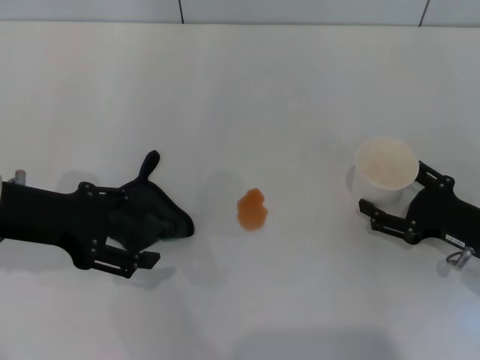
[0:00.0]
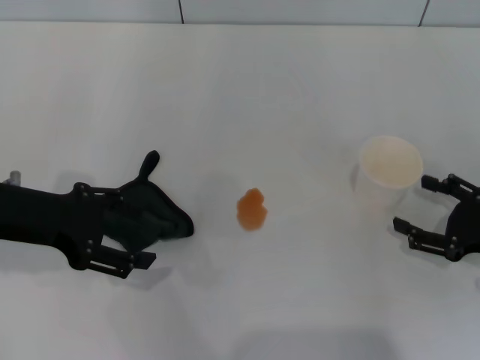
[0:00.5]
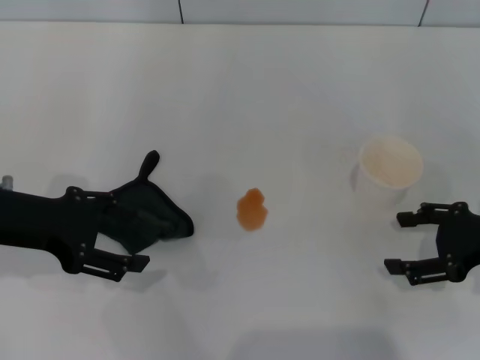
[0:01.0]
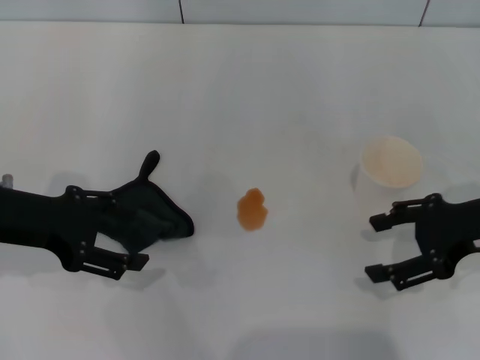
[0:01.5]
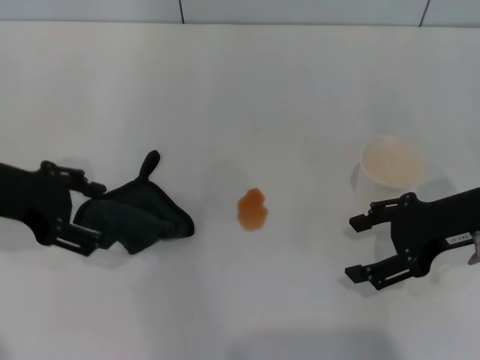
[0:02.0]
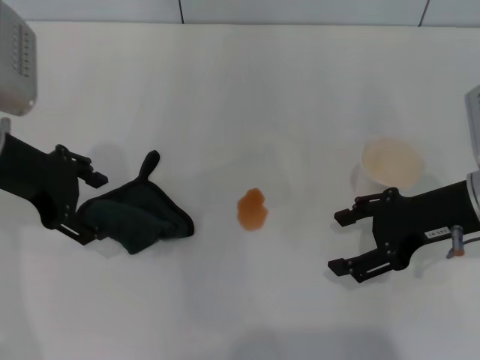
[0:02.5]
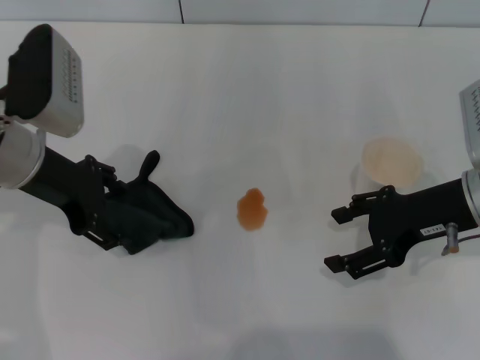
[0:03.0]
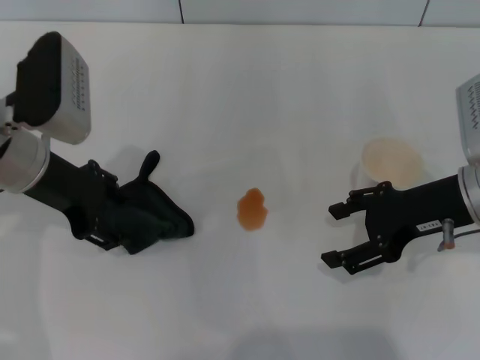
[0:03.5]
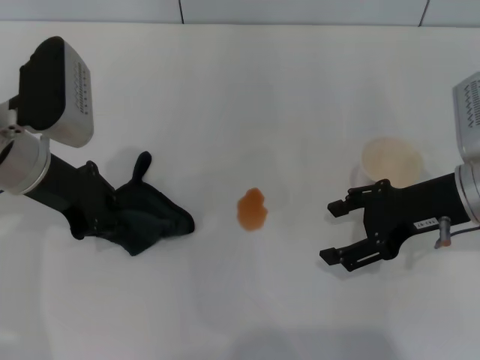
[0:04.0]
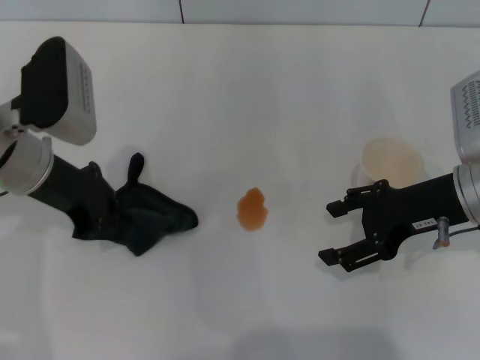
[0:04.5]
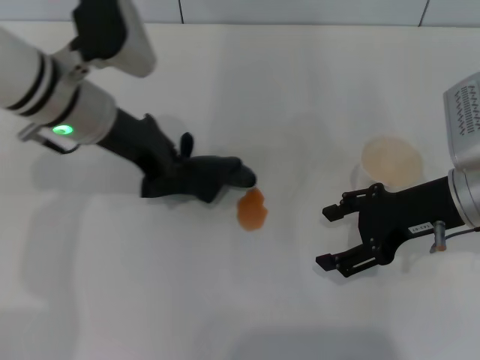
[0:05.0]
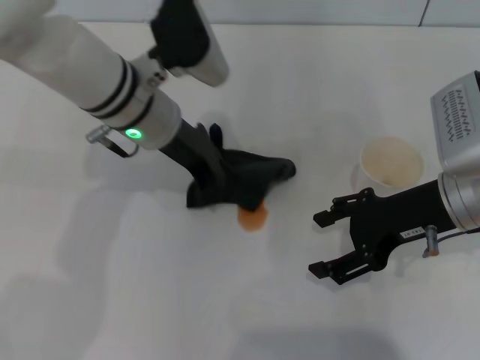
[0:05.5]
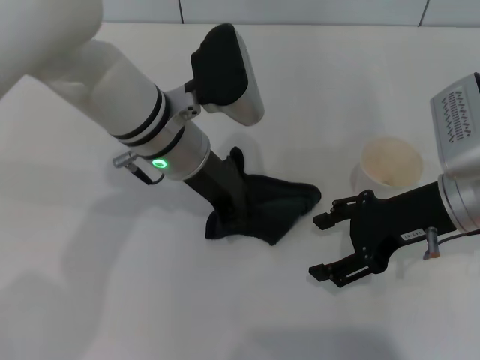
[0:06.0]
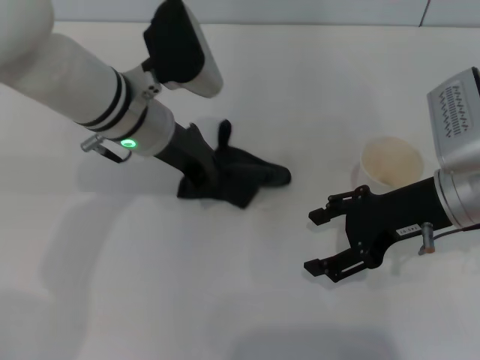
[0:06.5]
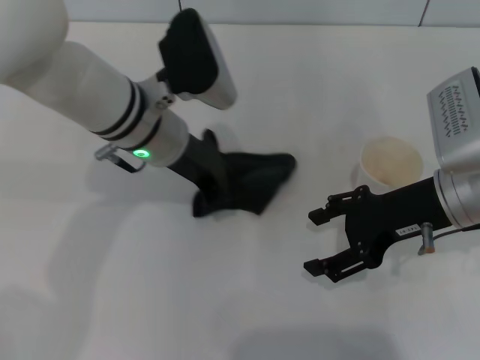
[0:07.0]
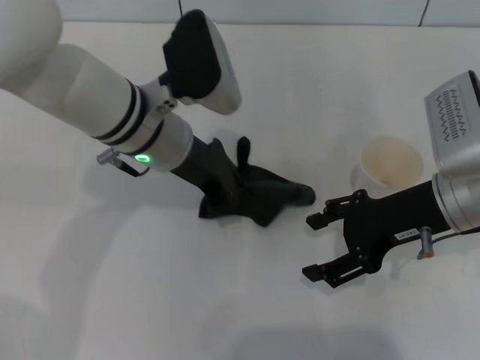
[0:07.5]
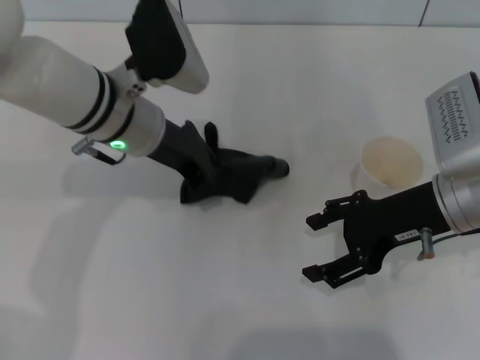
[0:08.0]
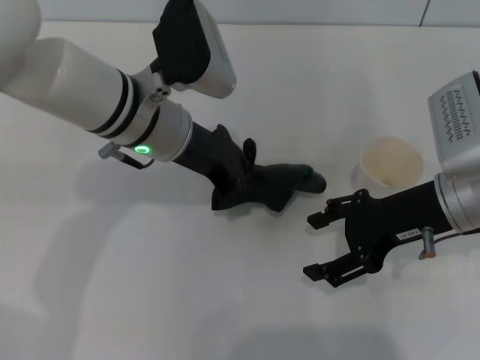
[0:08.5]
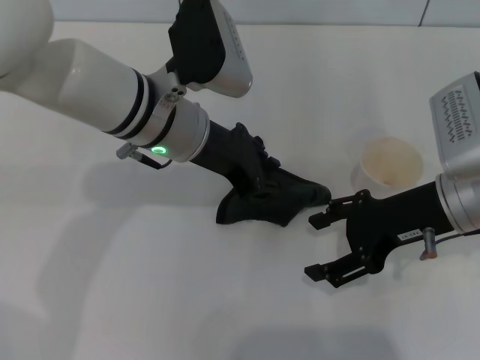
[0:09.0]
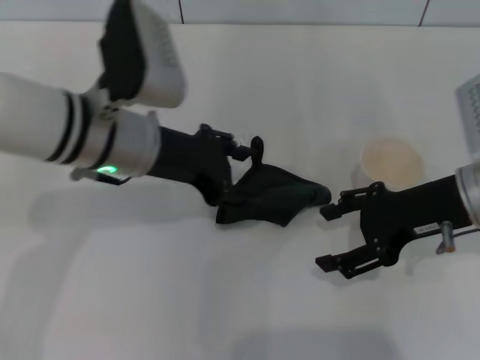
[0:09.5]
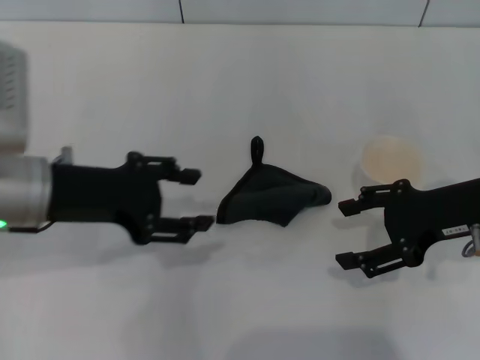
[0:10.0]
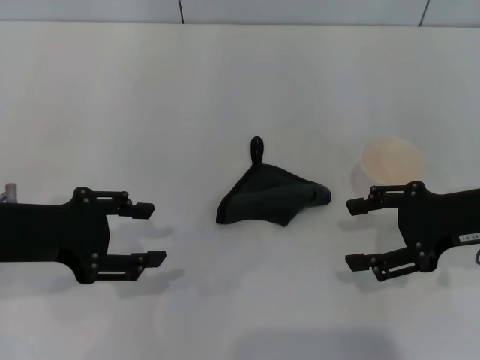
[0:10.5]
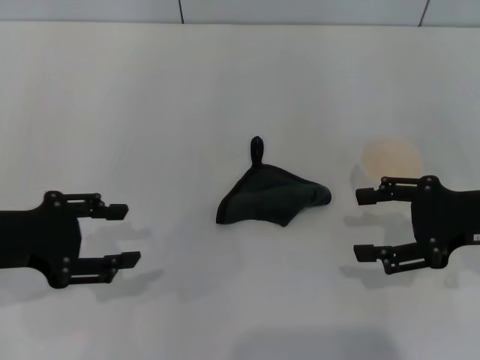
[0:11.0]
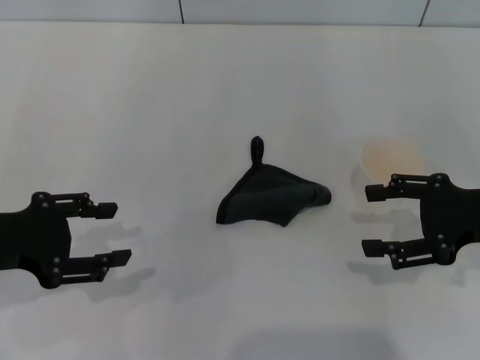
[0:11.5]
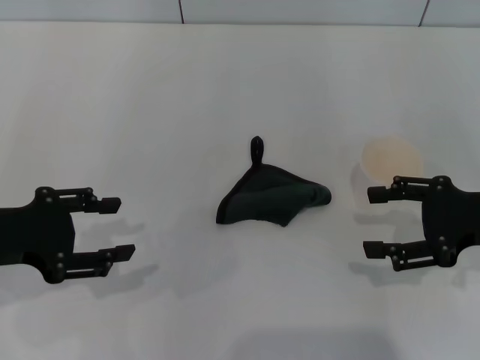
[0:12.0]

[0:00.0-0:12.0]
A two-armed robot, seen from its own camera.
Step, 0:01.0 to 0:04.5: Grasp the rag with the left gripper.
Step, 0:05.0 to 0:08.5: Wipe the stains off the table with the left gripper.
Step, 0:09.0 to 0:09.5: Place the rag on the table with the left gripper.
0:00.0 to 0:02.0: The right gripper is displaced upward by some 10 cm.
0:02.0 to 0:04.0: The left gripper shifts some 5 cm to the right, and closes up.
0:04.0 to 0:06.0: The left gripper goes some 15 cm to the right, and closes up.
0:08.0 to 0:10.0: The left gripper heads to the left and backward, covering about 15 cm, and opens.
0:10.0 to 0:12.0: The left gripper goes approximately 10 cm to the left. The right gripper ends up roughly 5 cm from where it was.

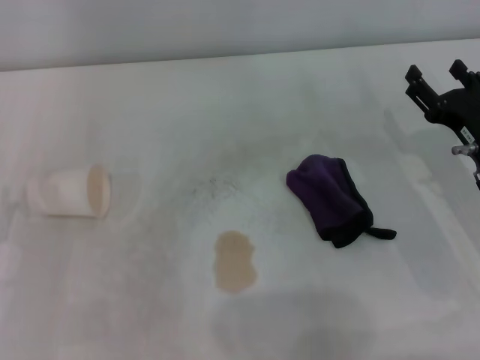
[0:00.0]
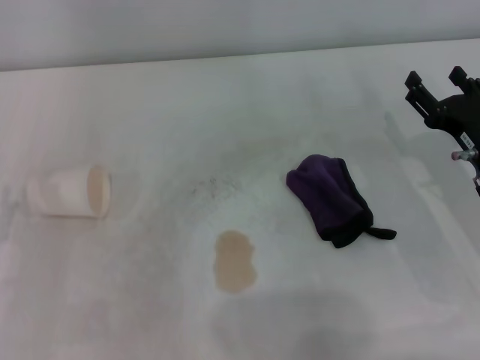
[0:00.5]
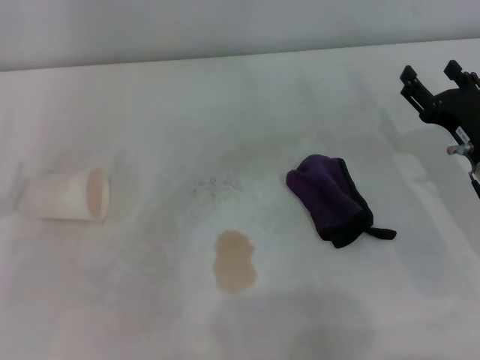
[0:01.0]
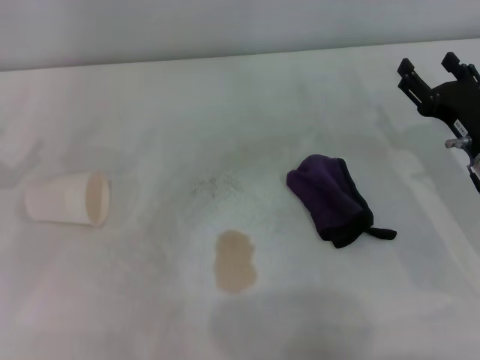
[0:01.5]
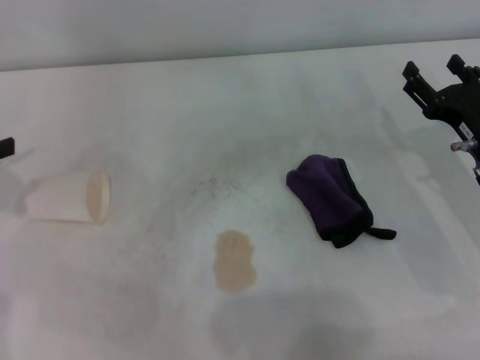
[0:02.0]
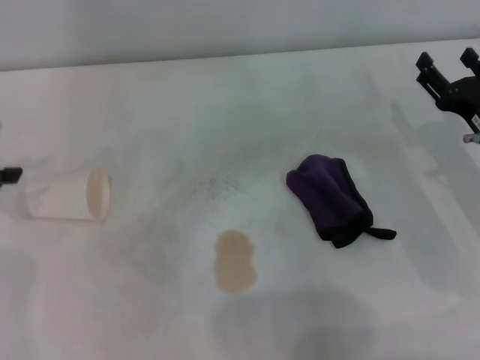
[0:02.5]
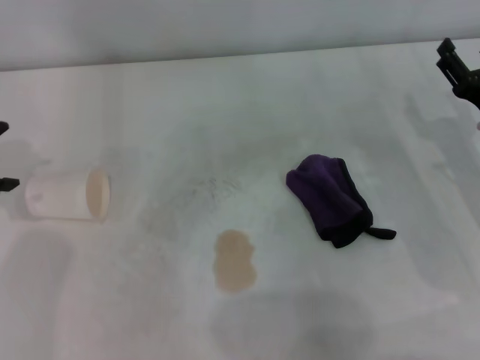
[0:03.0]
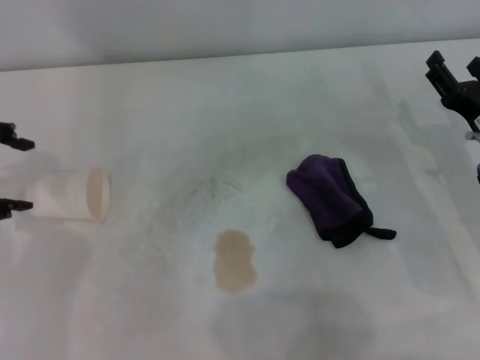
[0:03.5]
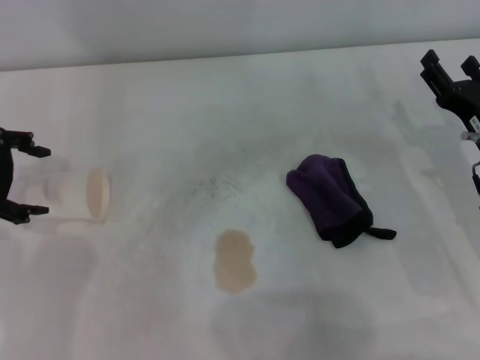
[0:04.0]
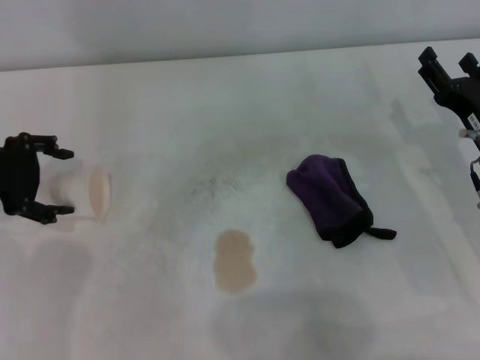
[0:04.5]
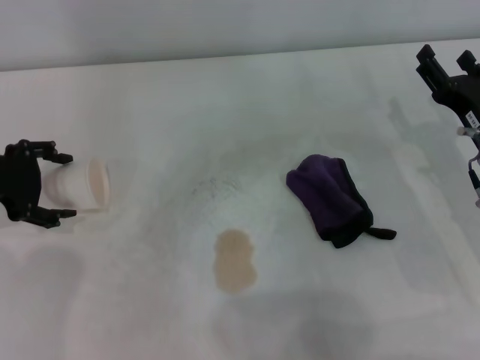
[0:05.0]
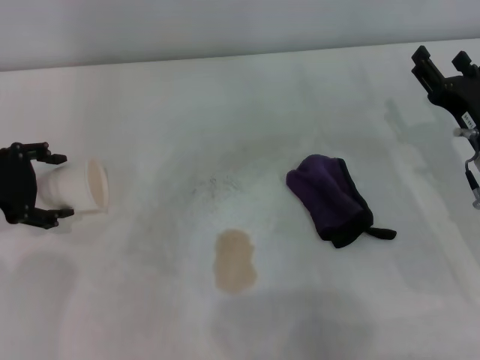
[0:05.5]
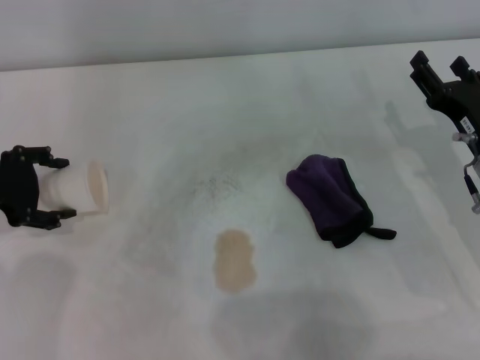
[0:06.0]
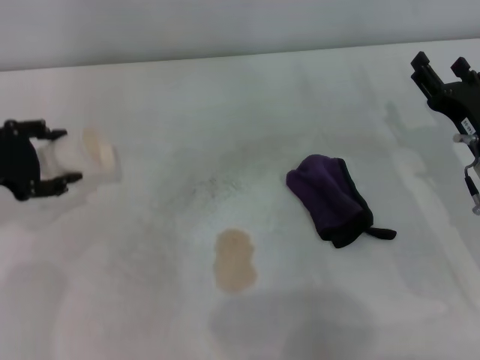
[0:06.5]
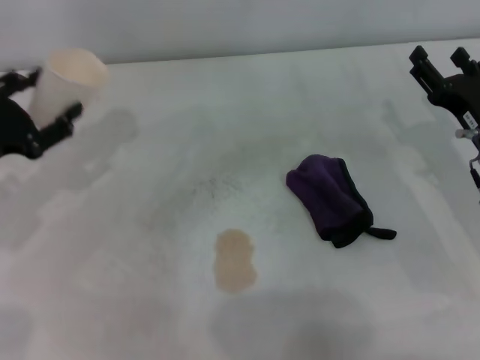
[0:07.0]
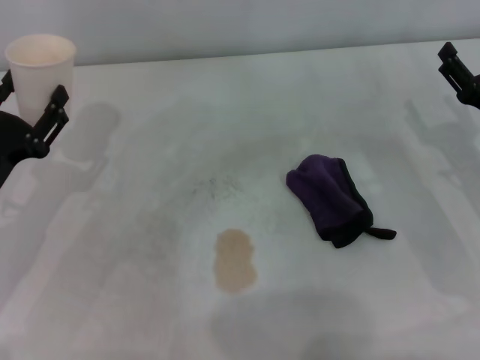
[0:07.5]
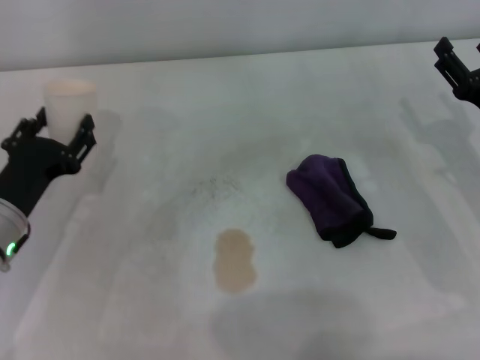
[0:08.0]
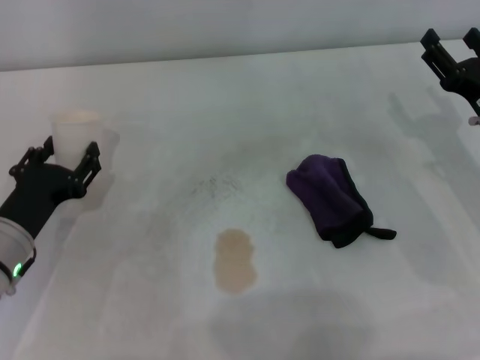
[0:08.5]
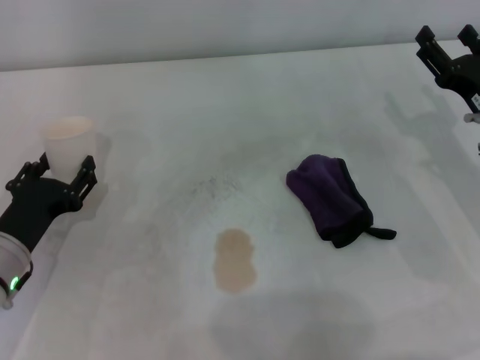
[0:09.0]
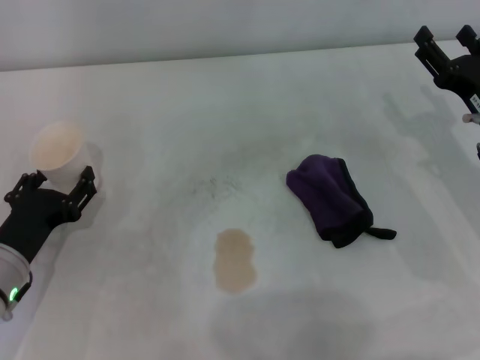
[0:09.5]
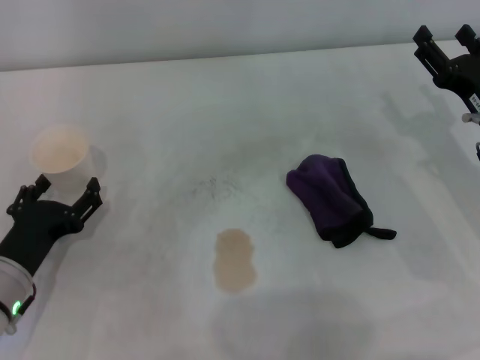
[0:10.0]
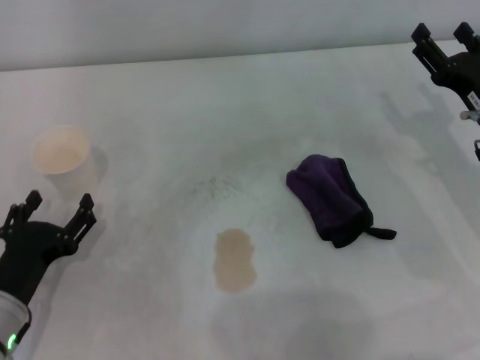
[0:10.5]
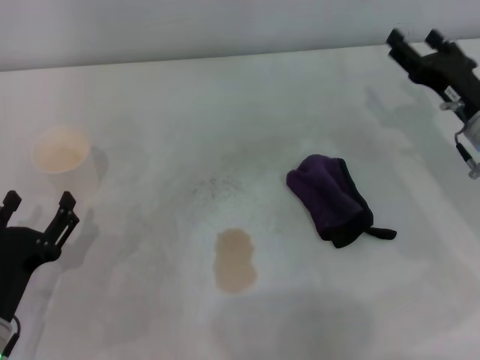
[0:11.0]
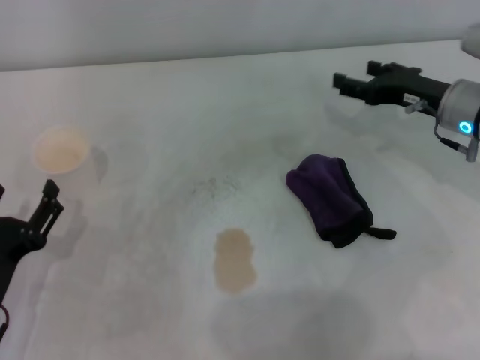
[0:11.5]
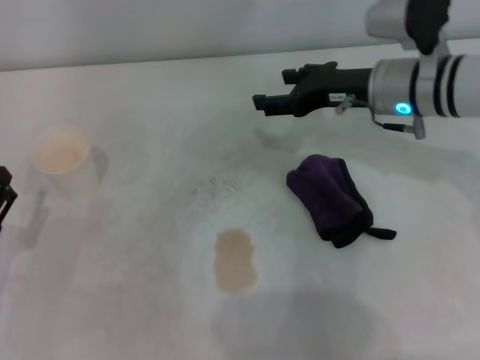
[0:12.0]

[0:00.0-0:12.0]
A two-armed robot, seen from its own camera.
Step, 0:00.0 to 0:06.0: Grasp the paper cup with the left gripper.
Step, 0:06.5 to 0:09.5: Stand the paper cup upright with the left gripper.
0:02.0 to 0:04.0: The left gripper goes some 5 cm to the right.
0:04.0 to 0:06.0: The left gripper moves downward, some 5 cm.
0:06.0 to 0:08.0: The left gripper travels downward, backward and to the right by approximately 10 cm, and closes its fingers.
0:08.0 to 0:10.0: The left gripper shifts by roughly 5 cm, and opens up.
0:10.0 to 0:12.0: The left gripper moves about 5 cm. The right gripper moves to the left, forward and upward, some 15 cm.

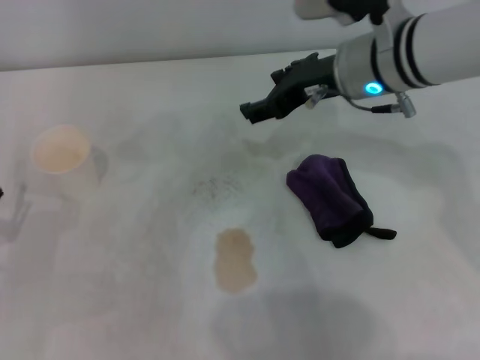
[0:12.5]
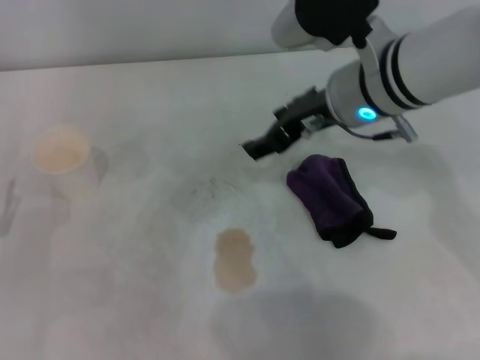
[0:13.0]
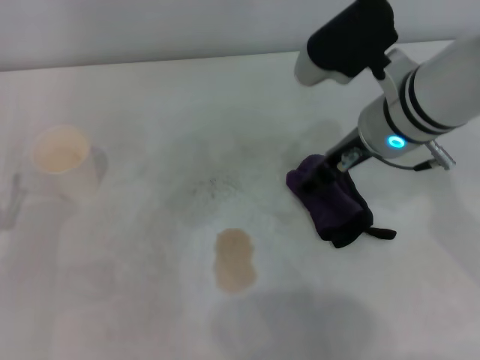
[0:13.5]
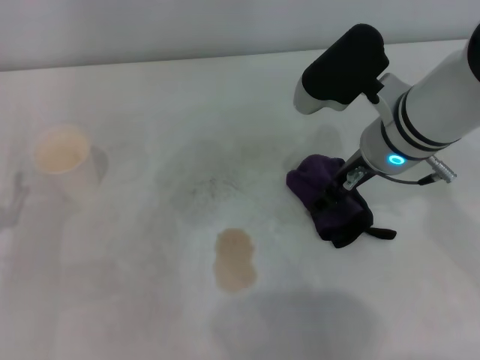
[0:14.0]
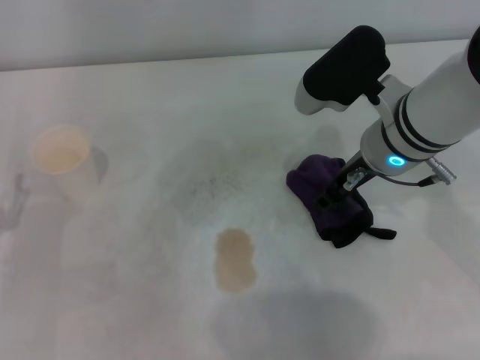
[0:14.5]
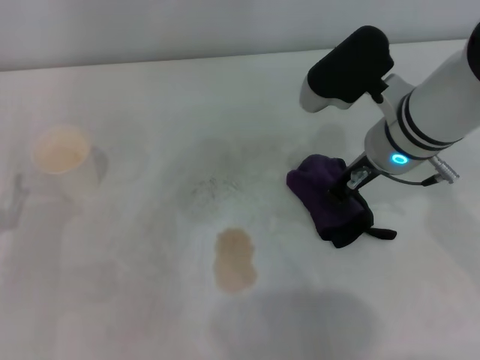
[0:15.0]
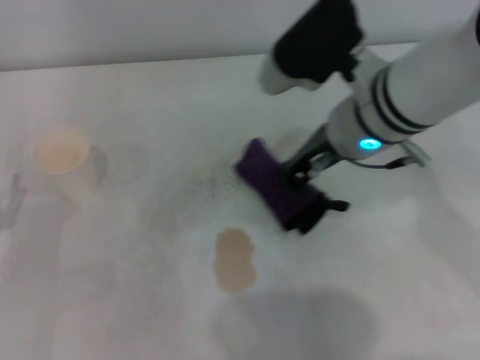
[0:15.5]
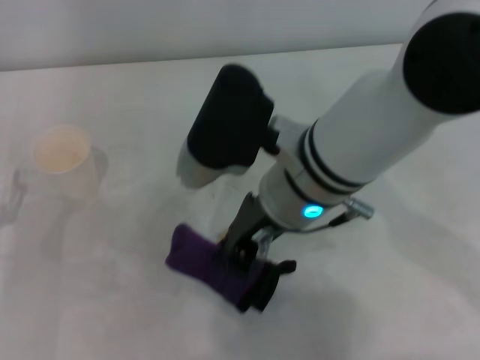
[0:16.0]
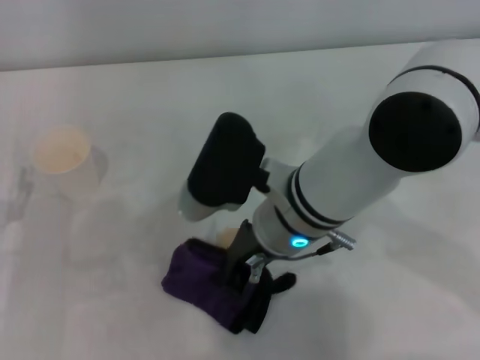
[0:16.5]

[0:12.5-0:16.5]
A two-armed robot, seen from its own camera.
Step, 0:12.5 to 0:14.5: Grasp the rag with the right gripper.
0:12.5 to 0:14.5: The right gripper ends up about 5 cm from where it was.
0:14.5 to 0:16.5: The right gripper shifts about 10 cm to the left and backward, and closes.
